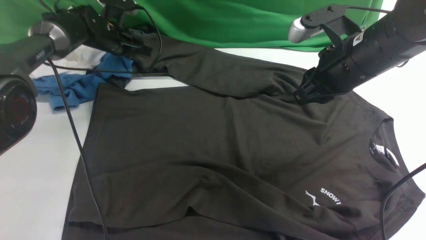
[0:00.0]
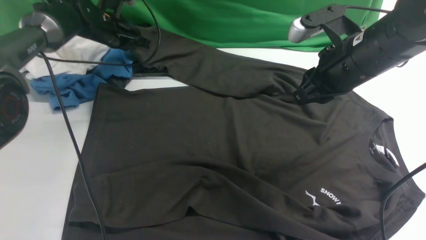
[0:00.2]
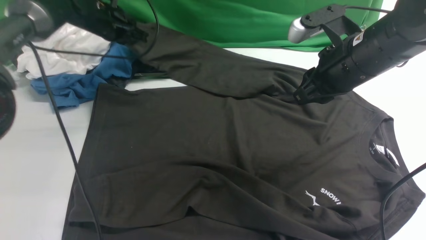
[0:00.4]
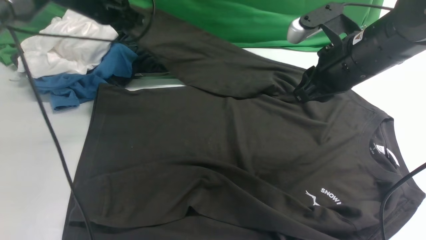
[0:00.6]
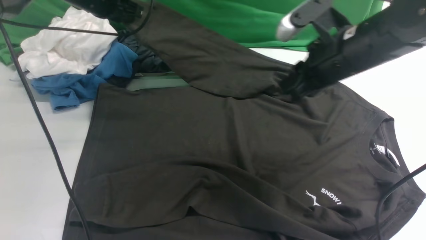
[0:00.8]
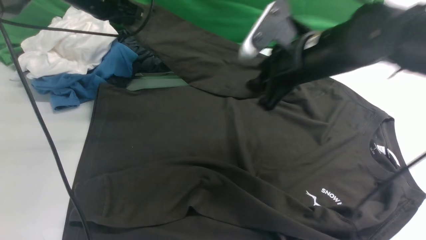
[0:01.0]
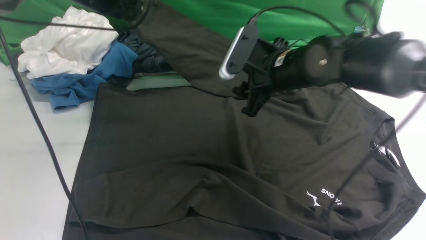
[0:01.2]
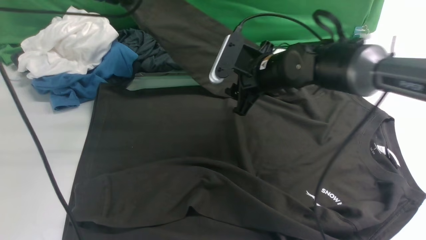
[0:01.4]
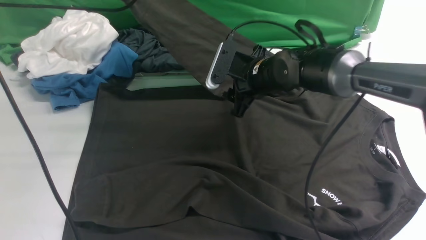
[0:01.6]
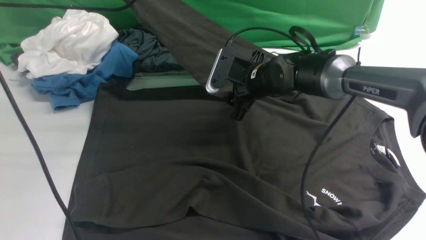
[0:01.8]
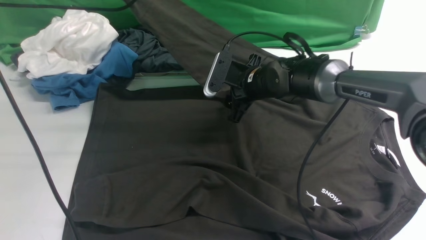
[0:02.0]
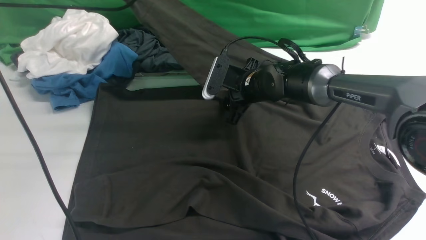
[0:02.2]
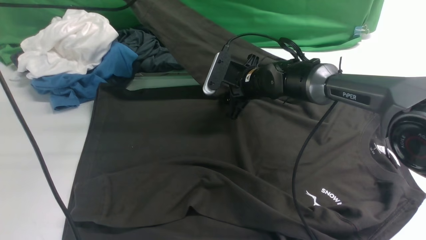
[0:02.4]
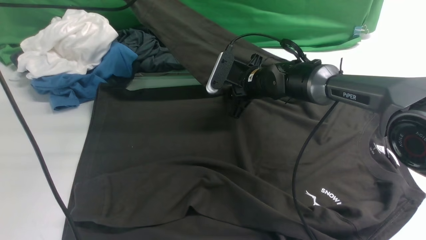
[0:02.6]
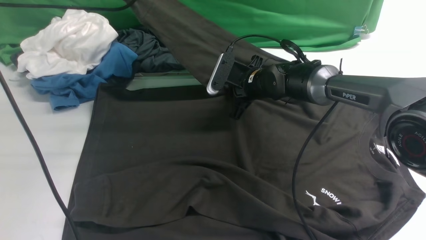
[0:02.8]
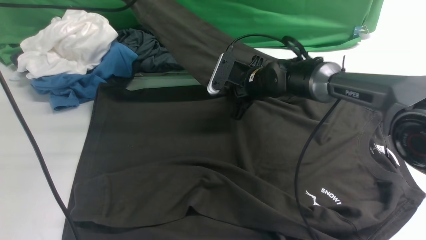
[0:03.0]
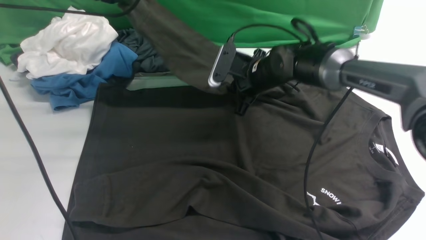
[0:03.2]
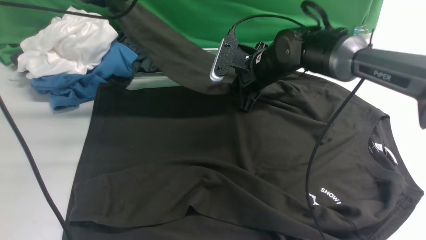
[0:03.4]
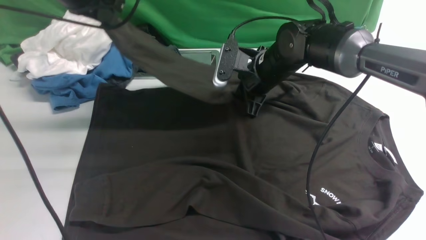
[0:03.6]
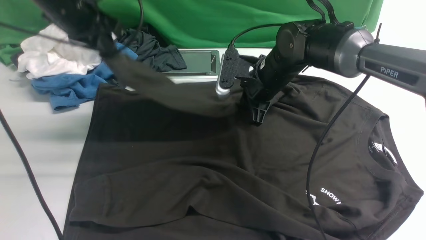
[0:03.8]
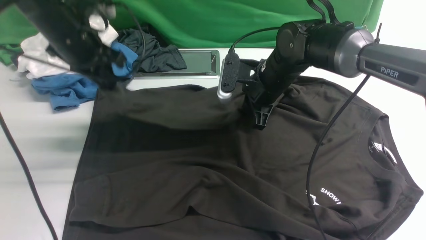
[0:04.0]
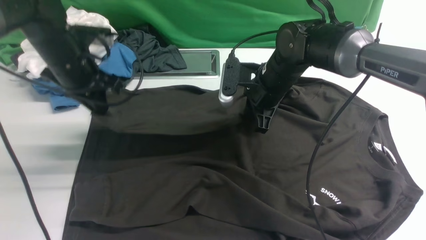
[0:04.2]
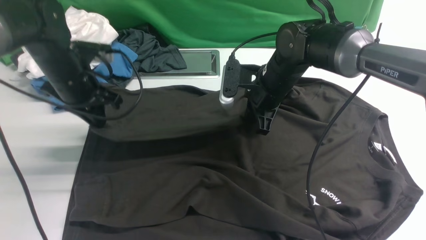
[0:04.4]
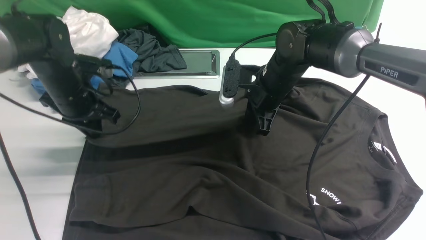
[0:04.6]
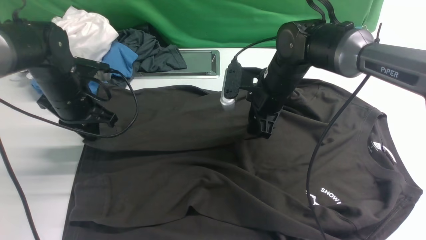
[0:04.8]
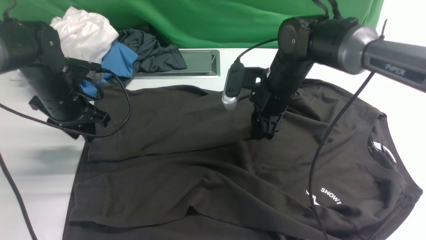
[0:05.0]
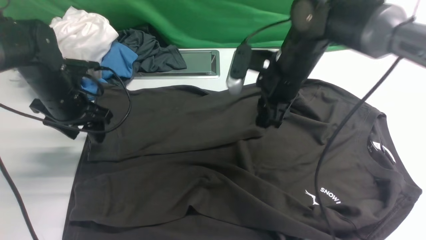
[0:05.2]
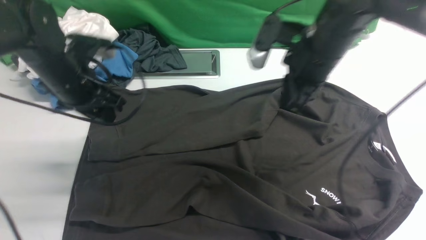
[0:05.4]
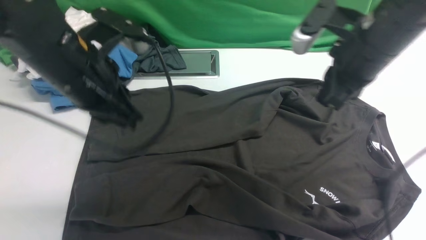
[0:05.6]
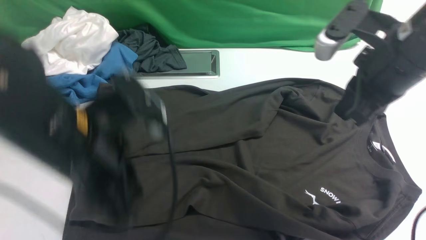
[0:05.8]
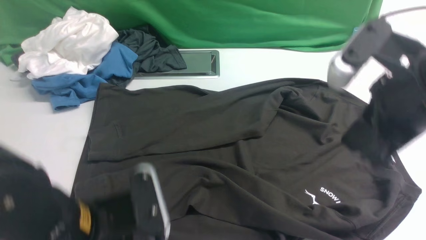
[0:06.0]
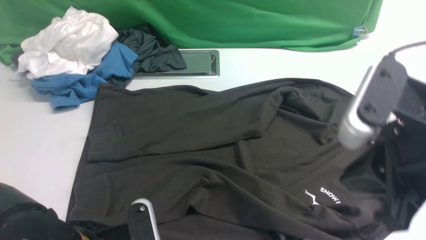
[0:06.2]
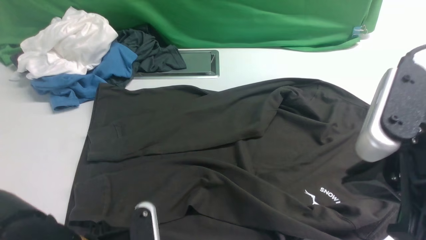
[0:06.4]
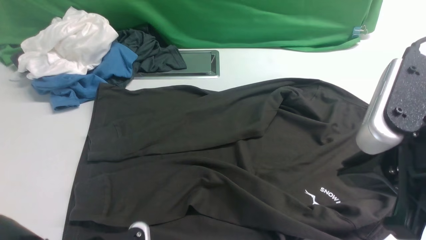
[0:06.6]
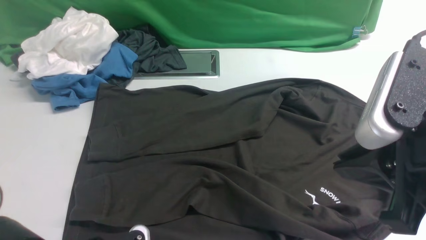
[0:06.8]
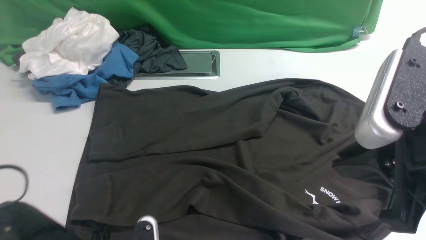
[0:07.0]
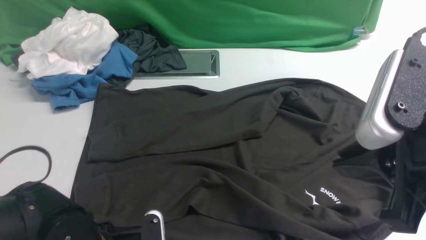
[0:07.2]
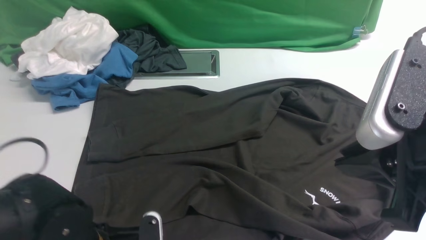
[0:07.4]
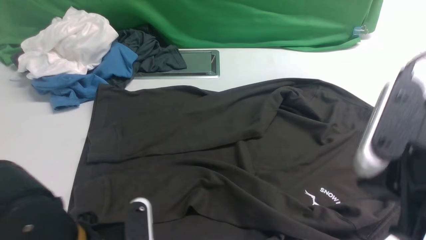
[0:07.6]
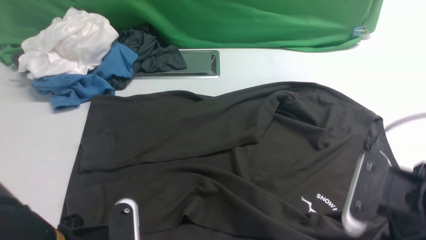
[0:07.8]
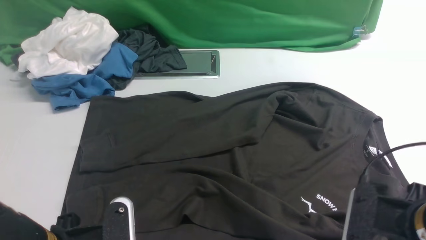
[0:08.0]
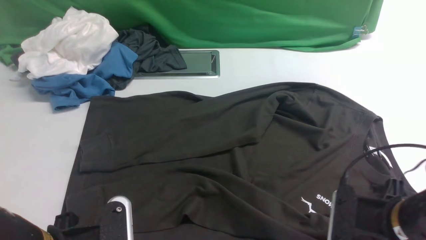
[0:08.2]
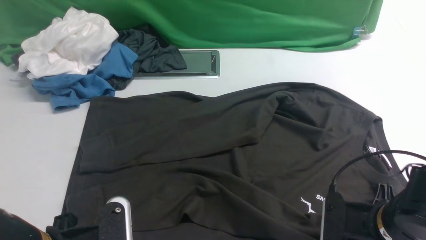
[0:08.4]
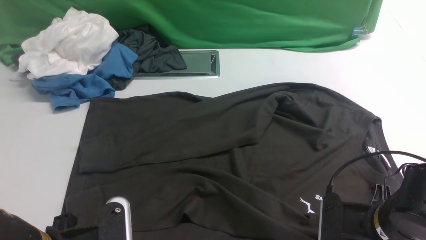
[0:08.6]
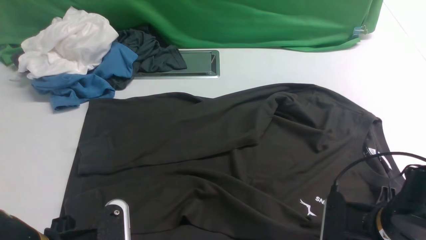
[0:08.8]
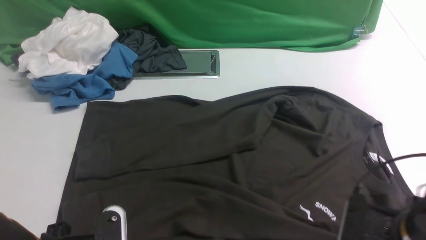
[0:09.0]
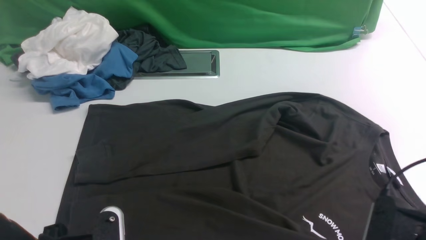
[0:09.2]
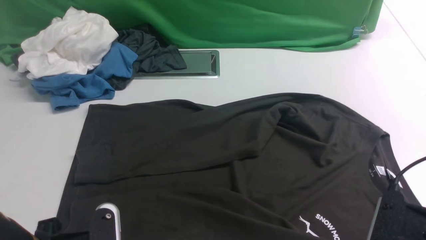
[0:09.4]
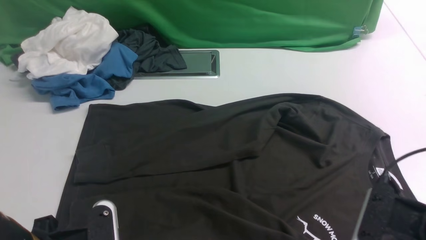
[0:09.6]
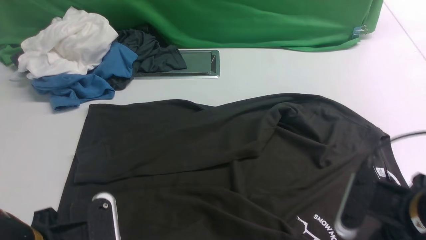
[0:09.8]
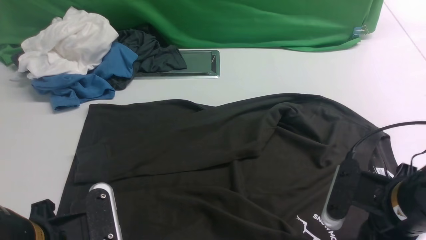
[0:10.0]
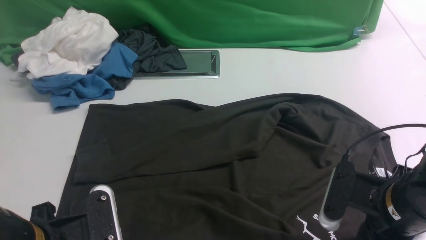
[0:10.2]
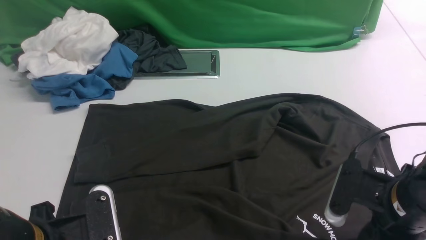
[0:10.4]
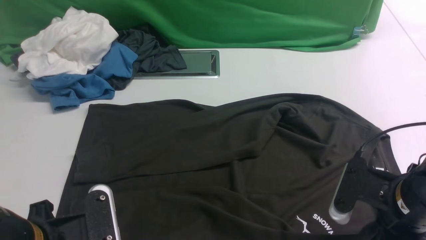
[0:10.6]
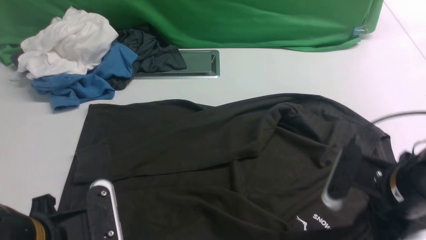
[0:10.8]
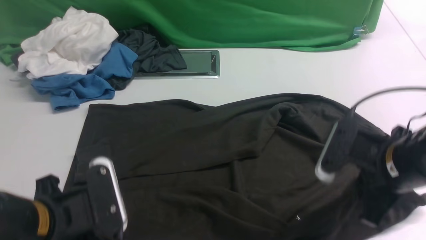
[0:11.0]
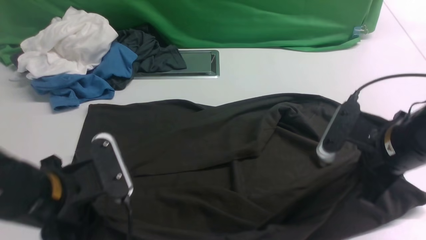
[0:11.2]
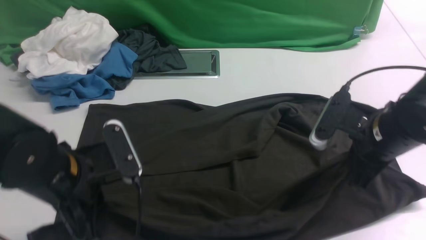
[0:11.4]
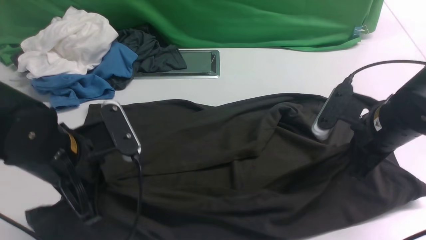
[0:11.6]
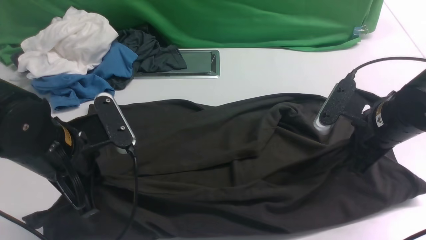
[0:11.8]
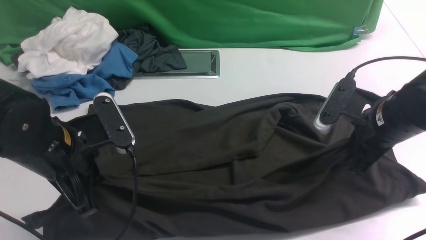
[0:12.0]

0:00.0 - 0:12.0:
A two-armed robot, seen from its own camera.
Step, 0:00.6 - 0:05.2: use the left arm to drag and drop the cuff onto the cuff closest to the left arm.
Step, 0:05.4 - 0:11.0: use both arms simultaneously to clamp the lower edge of the clothing fabric.
0:00.0 - 0:01.6: The left gripper travels upward and backward by about 15 cm. The right gripper is displaced downward, to the left and forward by about 20 cm, and opens its fingers.
0:01.6 - 0:03.0: The right gripper closes its fingers.
0:03.0 - 0:04.4: The left gripper goes some 15 cm downward and backward. Meanwhile the right gripper moves about 5 cm.
0:04.4 - 0:06.0: The left gripper heads backward and to the right, covering about 25 cm, and opens, then closes again; the right gripper goes some 30 cm backward, upward and to the right, and opens, then closes again.
0:06.0 - 0:07.6: The right gripper heads backward, covering some 5 cm, and opens up, while the left gripper opens, then closes once more.
0:07.6 - 0:09.0: The right gripper moves downward, about 10 cm, and closes.
0:09.0 - 0:10.4: There are only small adjustments of the grippers.
0:10.4 - 0:12.0: Both grippers travel together forward, approximately 10 cm.

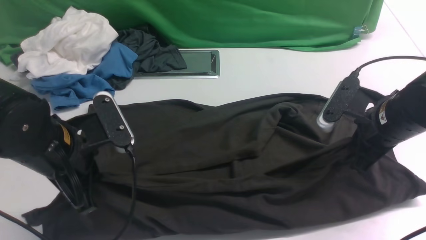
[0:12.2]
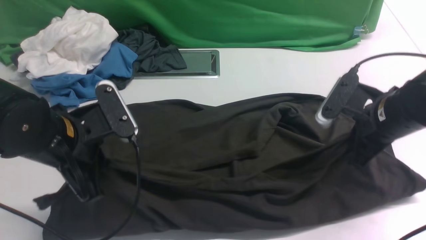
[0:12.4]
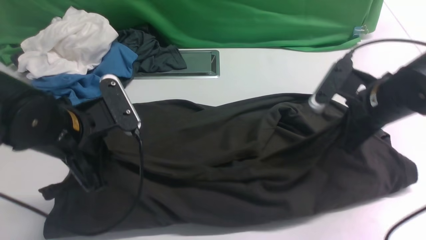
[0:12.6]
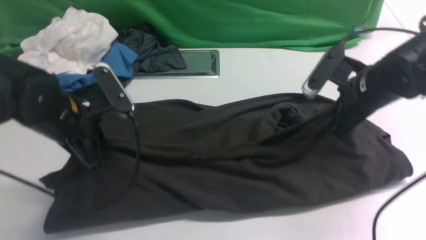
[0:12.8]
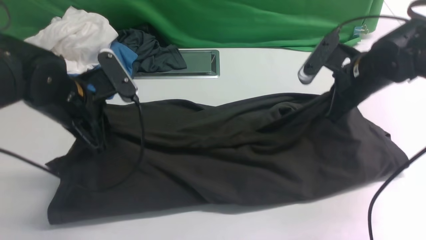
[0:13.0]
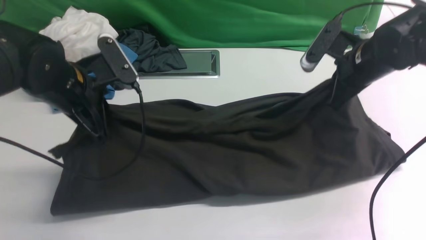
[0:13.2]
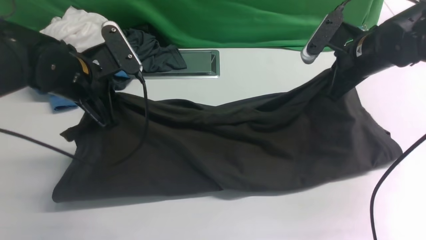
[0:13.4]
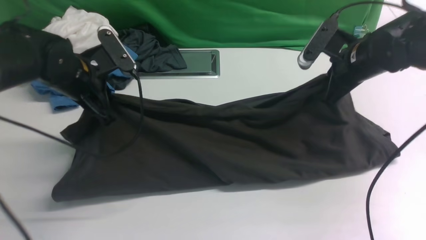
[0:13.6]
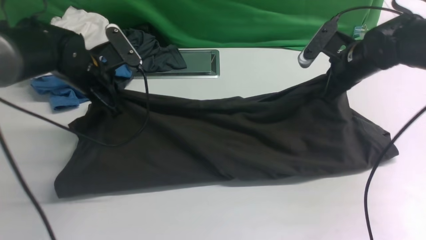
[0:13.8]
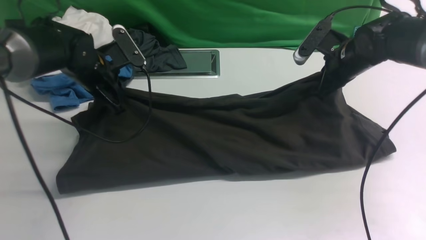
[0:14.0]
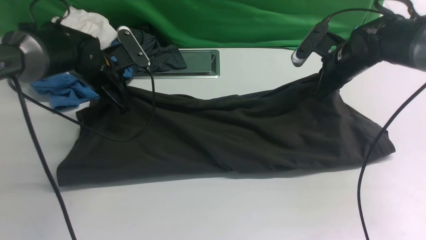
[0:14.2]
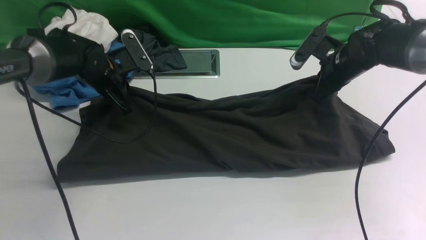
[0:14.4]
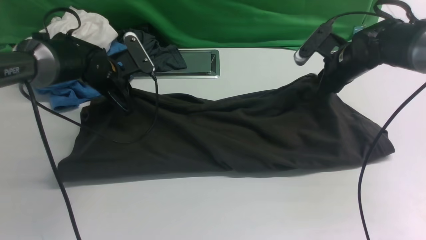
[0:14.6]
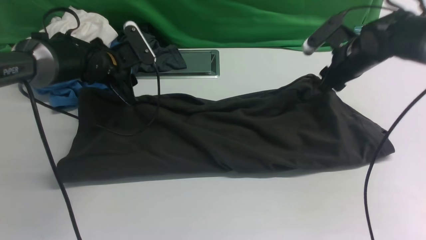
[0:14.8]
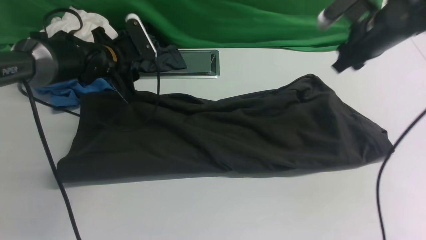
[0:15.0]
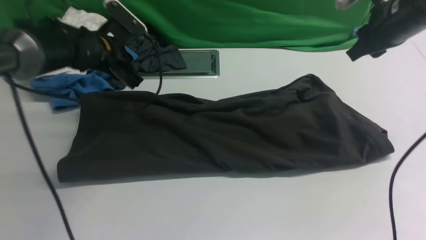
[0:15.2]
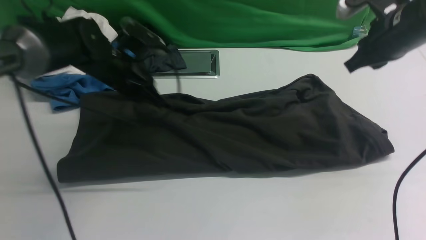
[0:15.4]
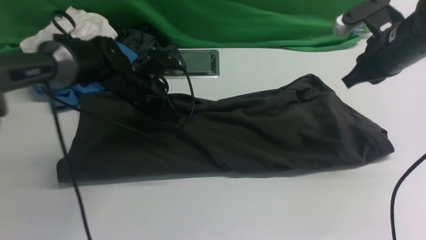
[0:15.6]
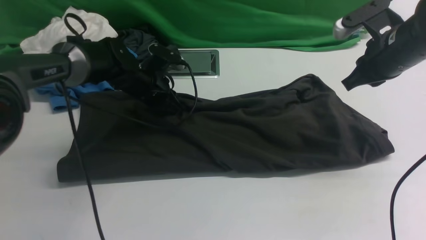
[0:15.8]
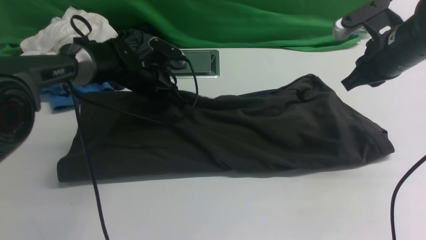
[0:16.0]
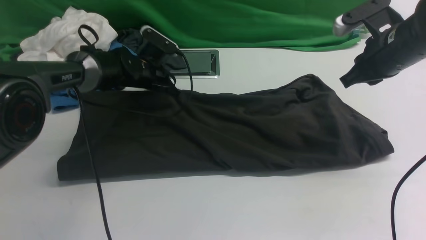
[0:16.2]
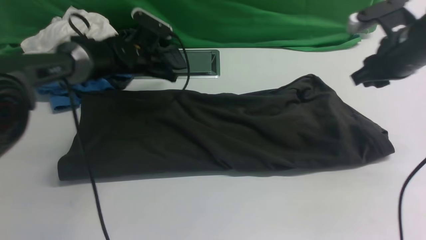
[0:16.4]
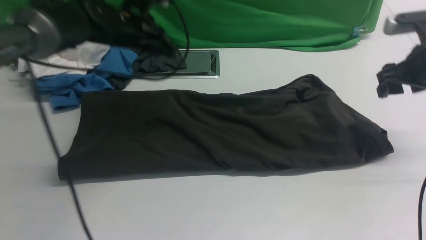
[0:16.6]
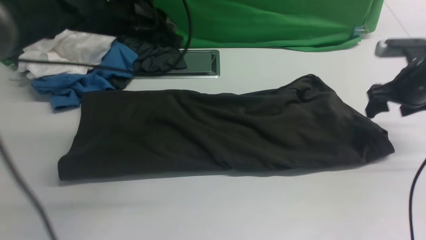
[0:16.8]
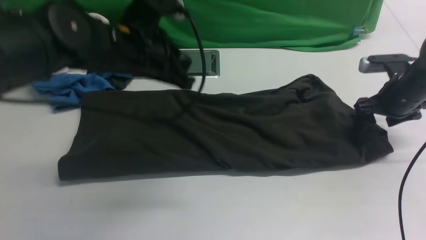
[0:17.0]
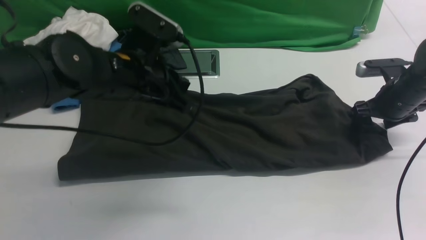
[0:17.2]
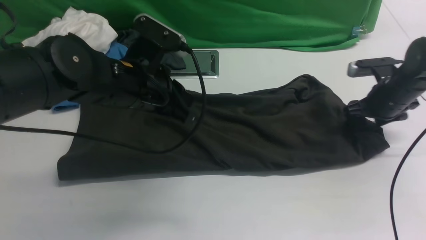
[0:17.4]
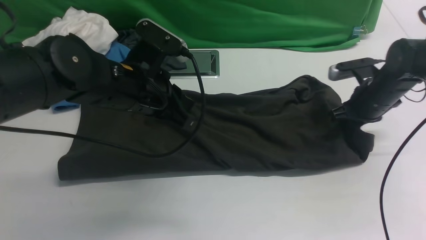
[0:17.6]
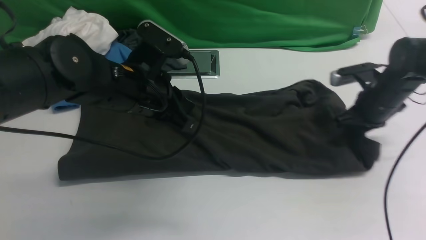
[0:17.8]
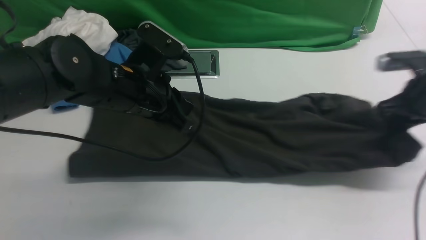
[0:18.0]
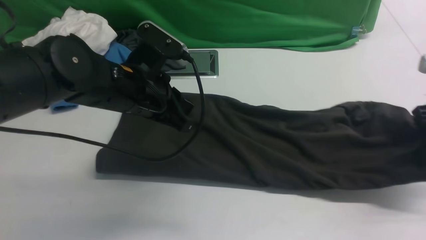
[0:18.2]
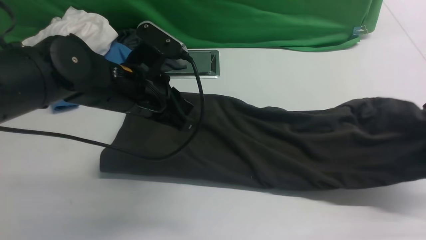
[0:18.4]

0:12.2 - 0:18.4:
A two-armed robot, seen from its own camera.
Step, 0:12.2 - 0:15.2: use both arms to drag the lower edge of the fabric forward and fold it over the upper edge.
Step, 0:15.4 - 0:17.8: use the right arm to clamp the right edge of the fabric.
0:12.2 - 0:13.8: Both grippers travel together forward, about 15 cm.
0:13.8 - 0:15.4: The left gripper ends up approximately 5 cm from where it was, and opens, then closes once more, while the right gripper goes some 10 cm upward, and opens, then closes again.
0:15.4 - 0:16.8: The right gripper is displaced downward and to the right by about 10 cm, and opens, while the left gripper travels upward by some 10 cm.
0:16.8 - 0:18.4: The left gripper goes roughly 10 cm backward; the right gripper travels backward and upward by approximately 10 cm, and closes.
